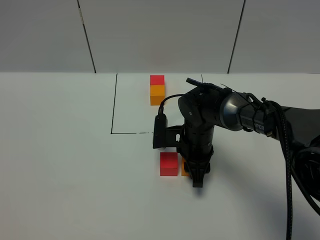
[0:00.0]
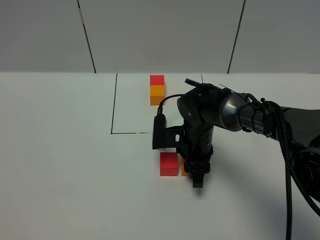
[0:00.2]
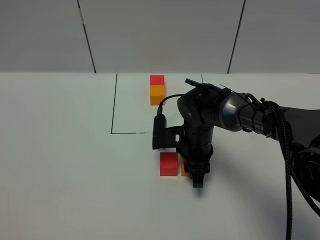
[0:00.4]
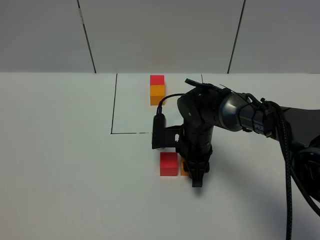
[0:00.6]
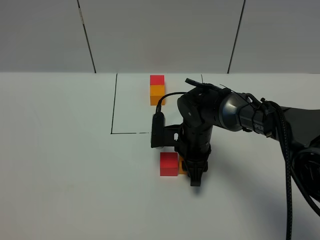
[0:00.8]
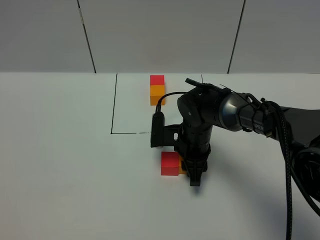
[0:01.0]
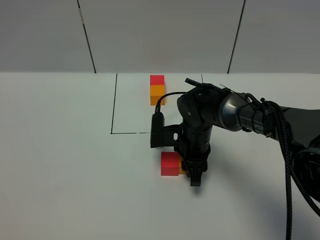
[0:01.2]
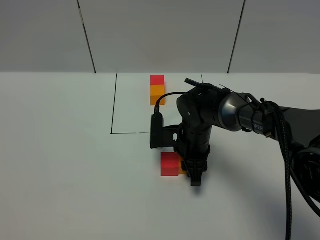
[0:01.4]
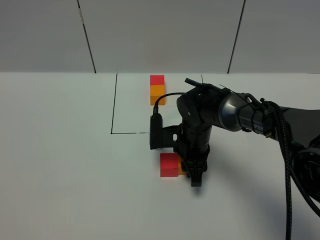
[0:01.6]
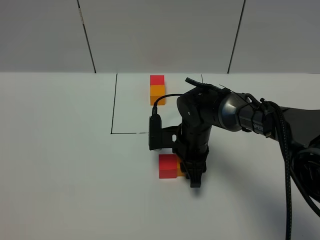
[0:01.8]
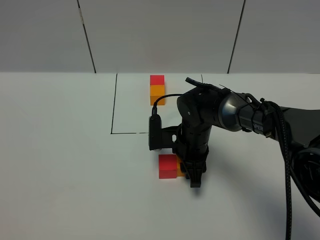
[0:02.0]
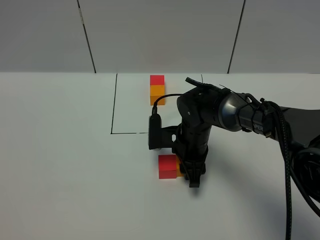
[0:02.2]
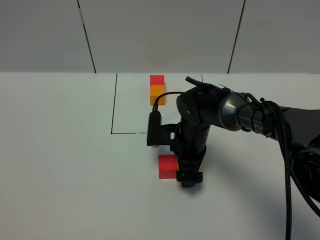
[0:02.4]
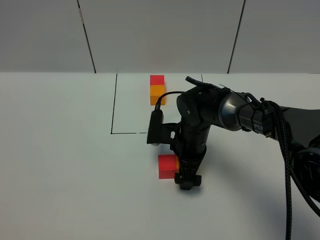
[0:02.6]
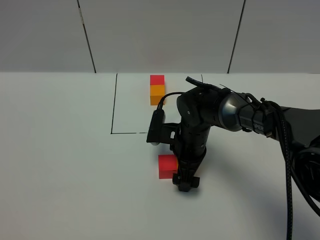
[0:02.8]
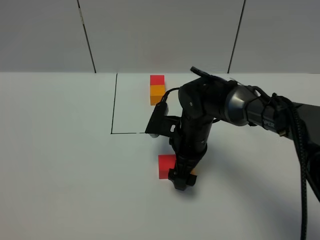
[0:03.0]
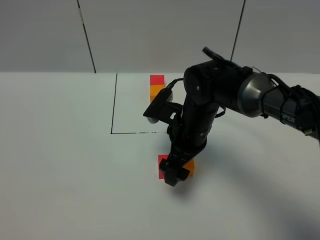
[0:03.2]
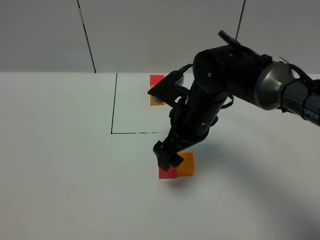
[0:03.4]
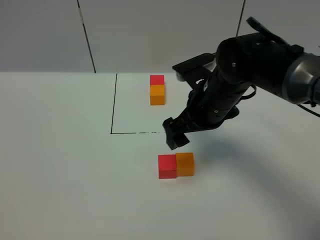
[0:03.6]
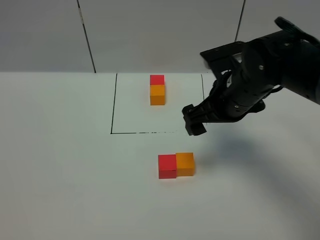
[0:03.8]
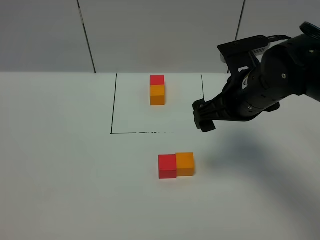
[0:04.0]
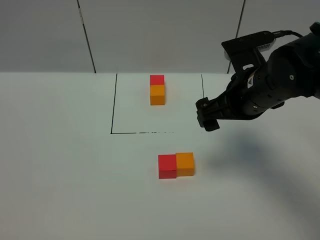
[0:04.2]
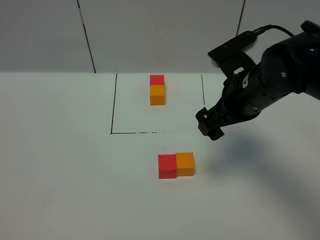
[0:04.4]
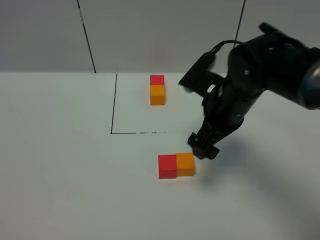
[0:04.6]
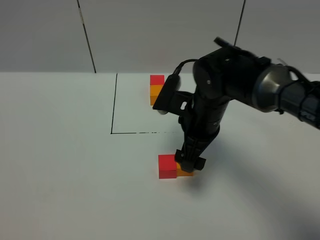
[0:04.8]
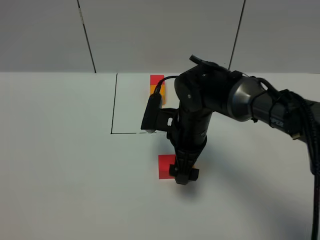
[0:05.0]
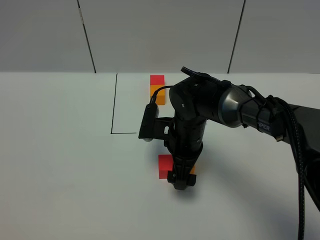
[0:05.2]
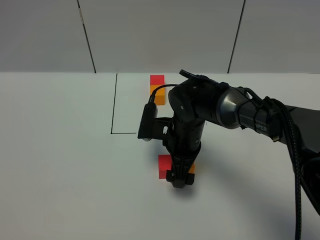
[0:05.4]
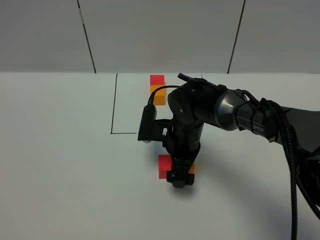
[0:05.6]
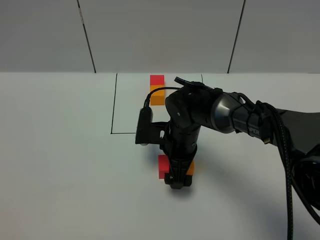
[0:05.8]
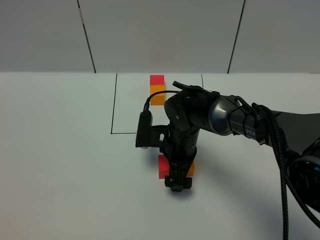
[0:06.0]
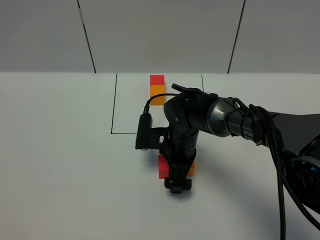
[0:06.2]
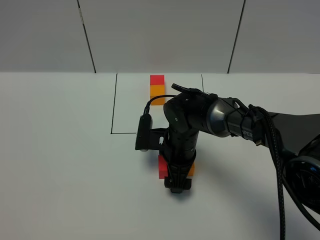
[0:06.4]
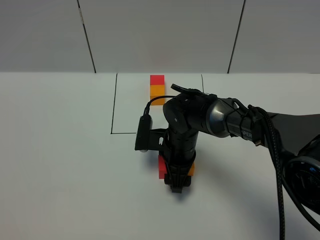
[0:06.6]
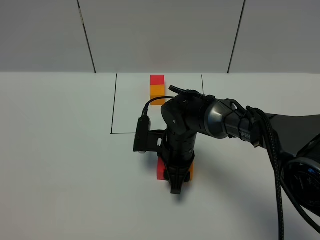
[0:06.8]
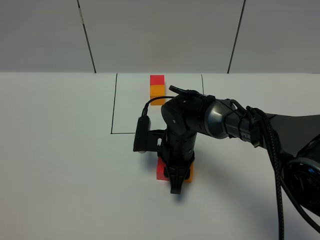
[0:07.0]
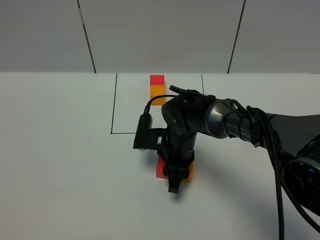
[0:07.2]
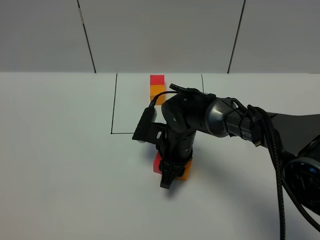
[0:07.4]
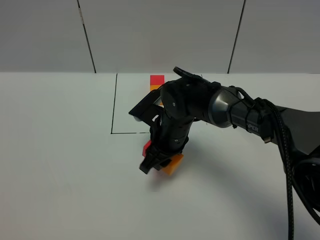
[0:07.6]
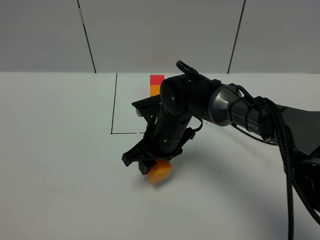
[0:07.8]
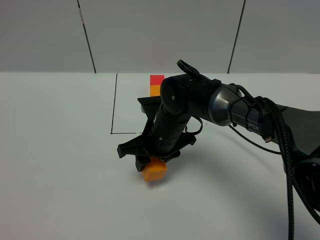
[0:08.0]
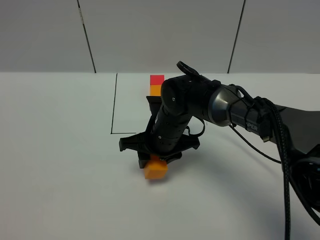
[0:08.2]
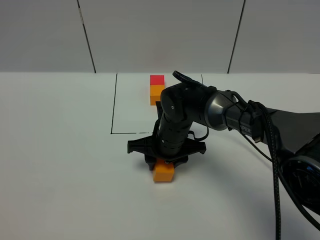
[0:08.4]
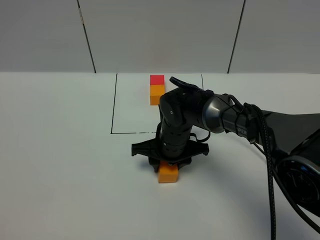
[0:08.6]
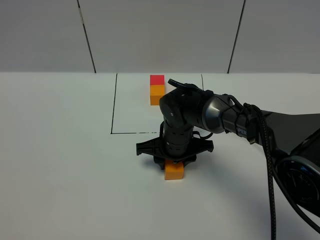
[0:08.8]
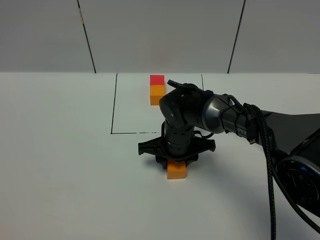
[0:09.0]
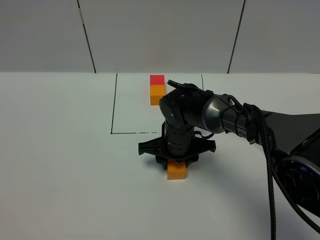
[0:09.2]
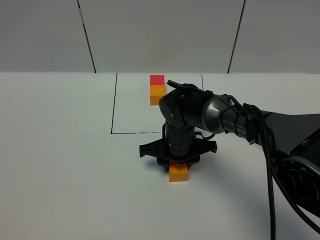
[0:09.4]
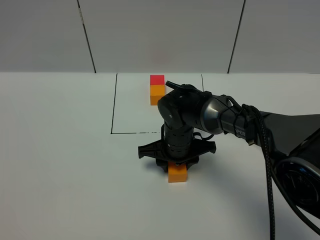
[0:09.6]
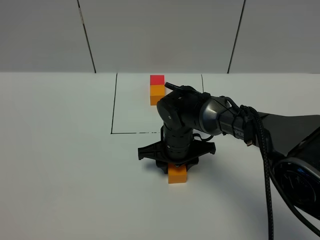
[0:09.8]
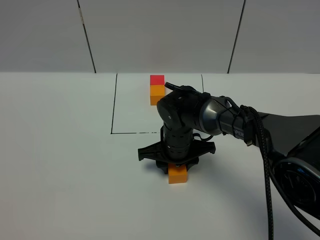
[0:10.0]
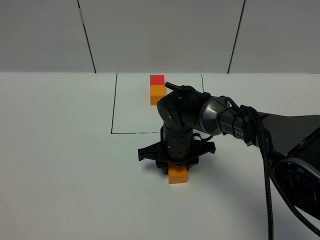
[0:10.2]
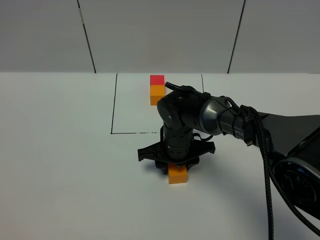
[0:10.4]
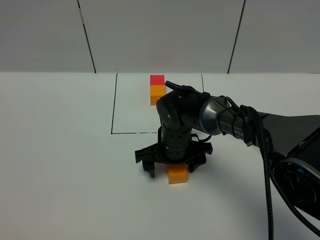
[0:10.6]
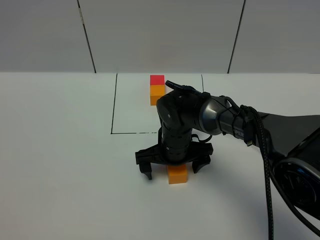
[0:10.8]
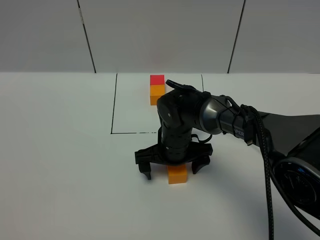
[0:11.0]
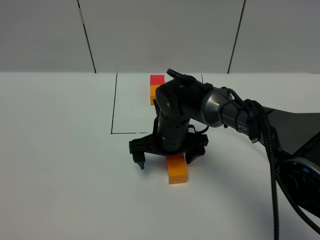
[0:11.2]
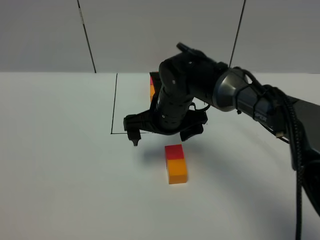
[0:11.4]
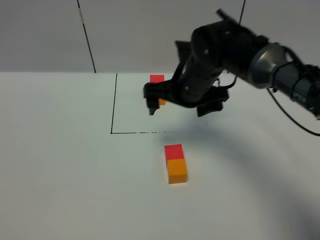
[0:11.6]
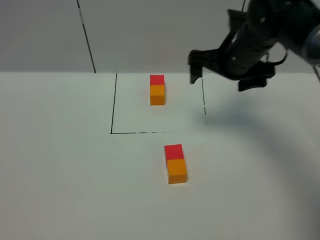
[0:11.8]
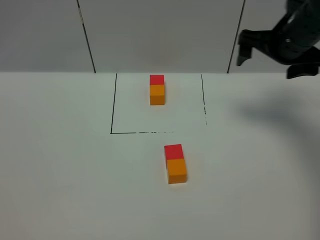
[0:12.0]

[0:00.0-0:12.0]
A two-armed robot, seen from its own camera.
Task of the whole recording: According to the building block template in front, assemble the scattered blocks together.
Step, 0:00.0 to 0:02.6: Put the orange cube on the right of the red cube.
Step, 0:02.8 to 0:10.8: Adjust the pose of the building blocks.
0:00.0 to 0:01.6: Neither gripper changes place.
0:01.6 to 0:03.0: The right gripper opens its fingers.
0:03.0 to 0:04.4: The right gripper shifts approximately 15 cm upward and to the right.
0:04.4 to 0:06.0: The right gripper heads downward and to the left, covering roughly 20 cm.
0:06.0 to 0:07.6: The right gripper closes.
0:09.0 to 0:10.4: Neither gripper changes place.
0:10.4 to 0:12.0: The right gripper heads to the right and upward, covering approximately 30 cm, and opens its fingers.

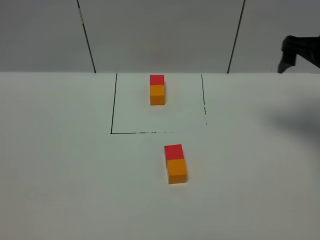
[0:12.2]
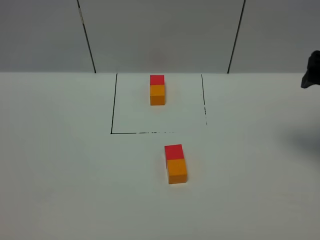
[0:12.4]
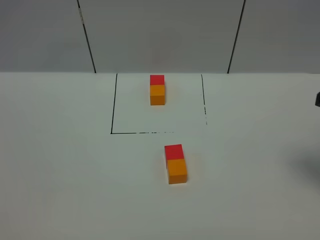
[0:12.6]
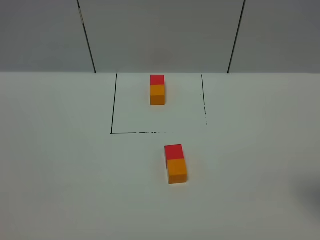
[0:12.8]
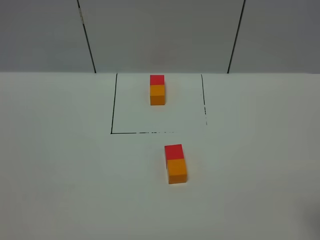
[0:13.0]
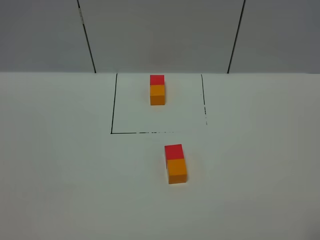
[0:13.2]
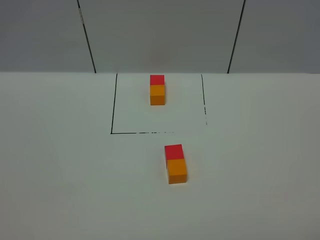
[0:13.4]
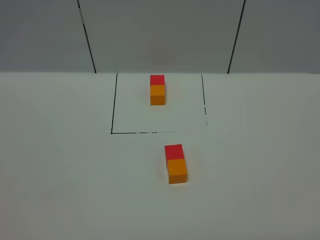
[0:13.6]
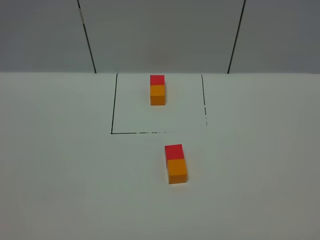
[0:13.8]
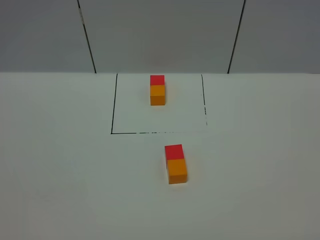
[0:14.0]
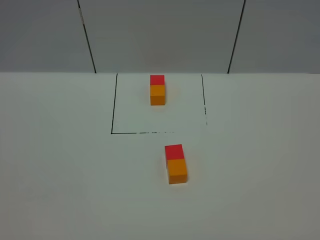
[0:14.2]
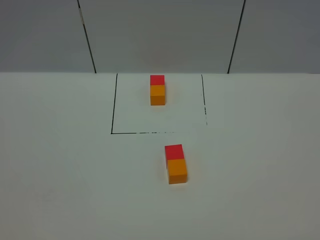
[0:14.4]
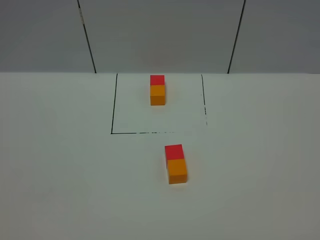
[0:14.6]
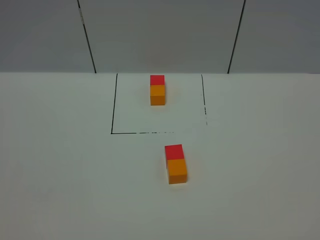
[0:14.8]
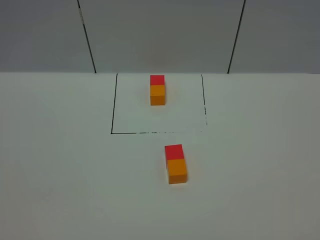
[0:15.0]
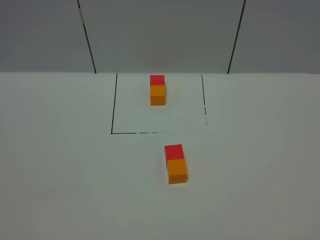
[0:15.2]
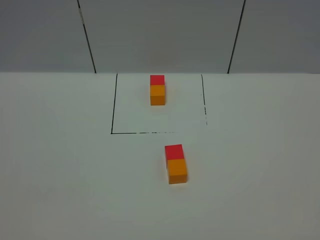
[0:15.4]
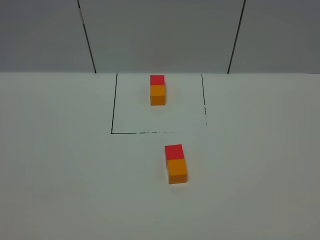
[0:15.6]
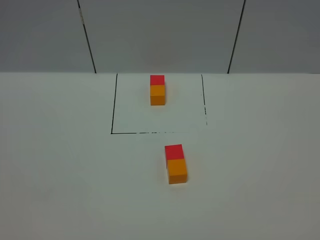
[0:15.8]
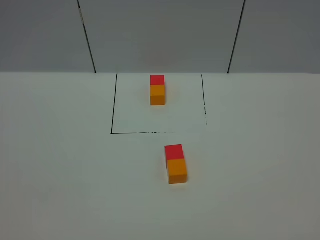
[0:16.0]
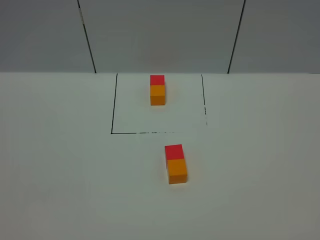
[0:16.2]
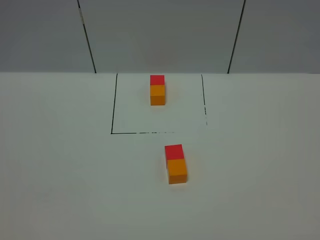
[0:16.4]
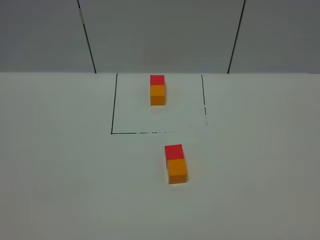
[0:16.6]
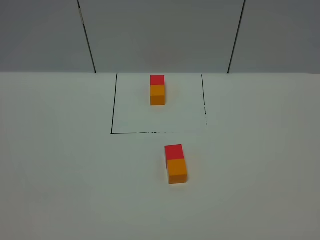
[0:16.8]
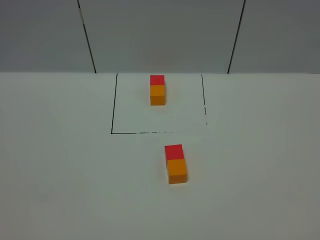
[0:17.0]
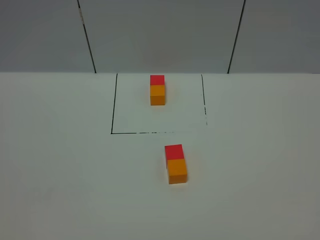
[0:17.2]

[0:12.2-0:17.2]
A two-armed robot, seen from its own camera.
Task of the whole recording: According to the building block template in front, assemble the scattered blocks together.
0:12.2 to 0:13.8: The right gripper shifts some 40 cm backward.
0:15.6 to 0:17.2: Both grippers stay put.
